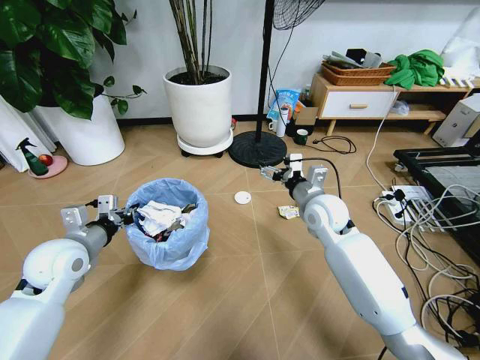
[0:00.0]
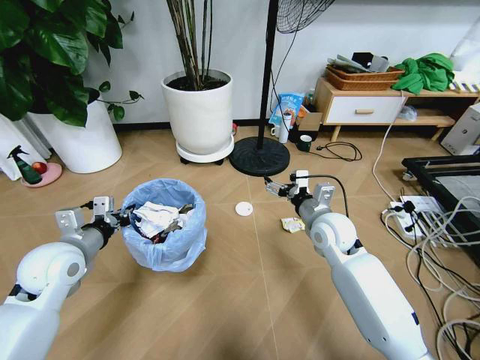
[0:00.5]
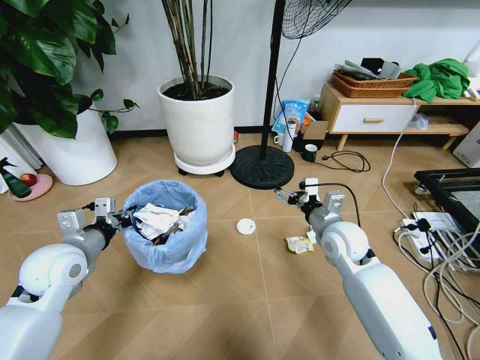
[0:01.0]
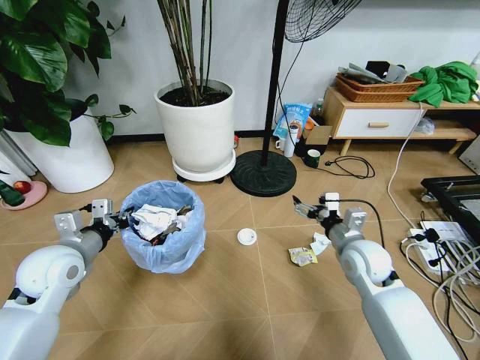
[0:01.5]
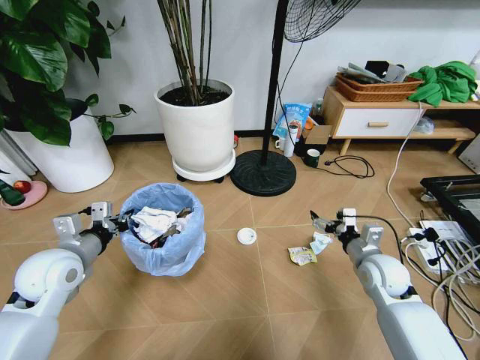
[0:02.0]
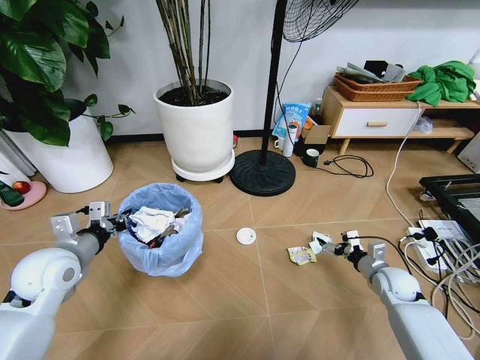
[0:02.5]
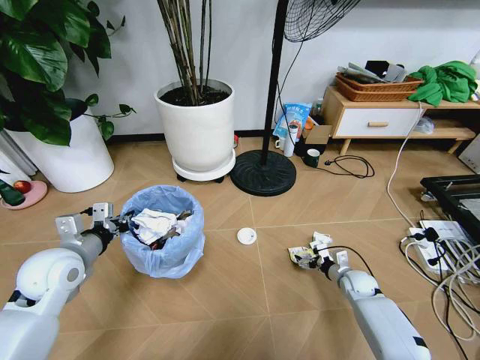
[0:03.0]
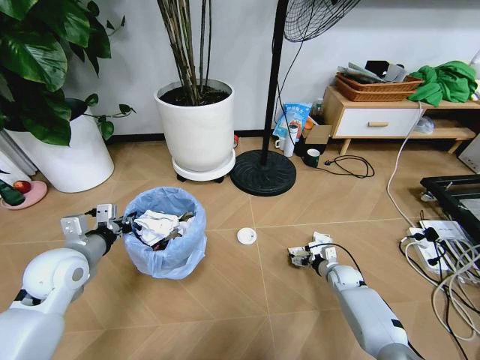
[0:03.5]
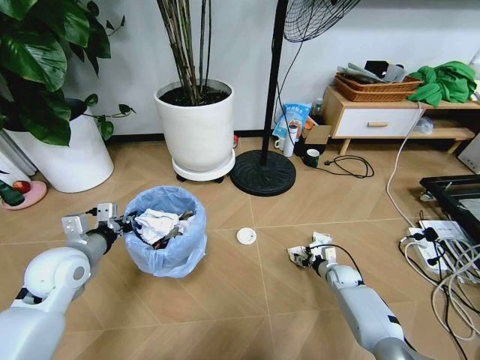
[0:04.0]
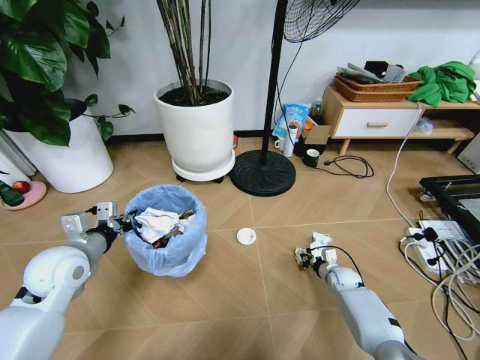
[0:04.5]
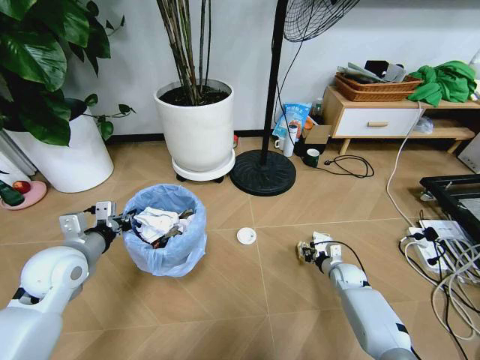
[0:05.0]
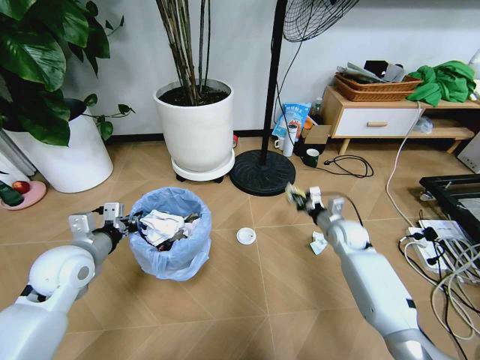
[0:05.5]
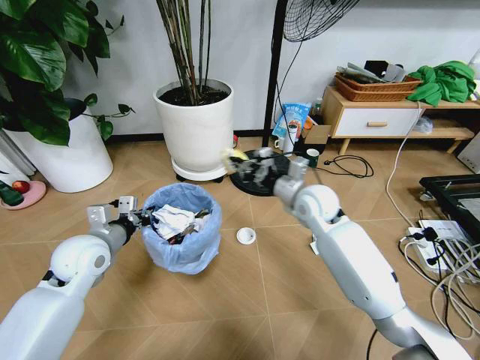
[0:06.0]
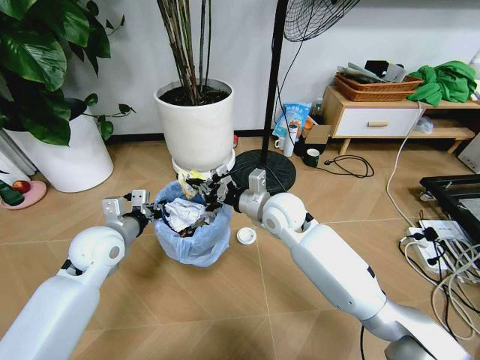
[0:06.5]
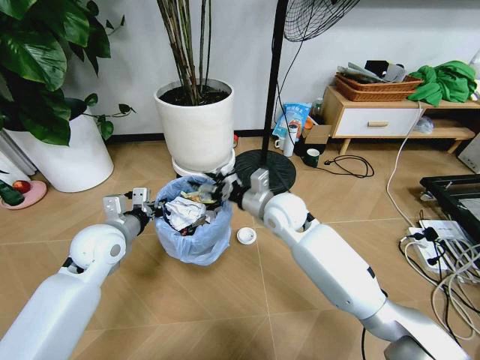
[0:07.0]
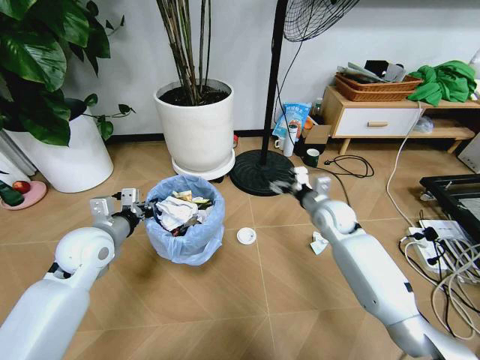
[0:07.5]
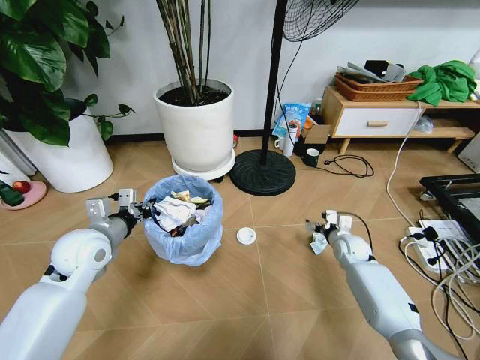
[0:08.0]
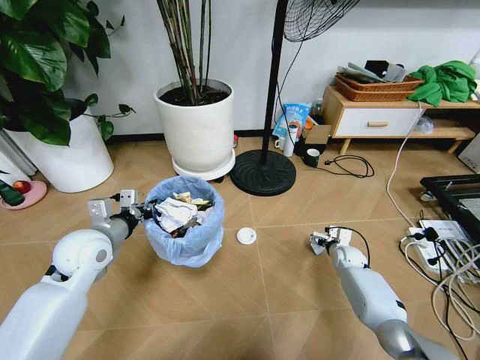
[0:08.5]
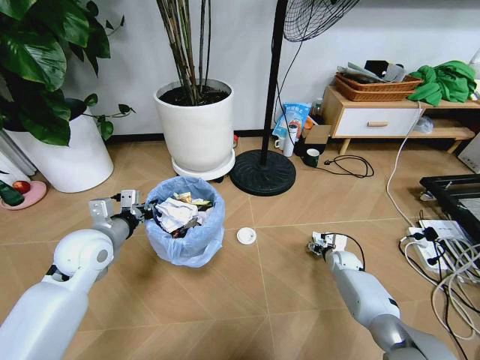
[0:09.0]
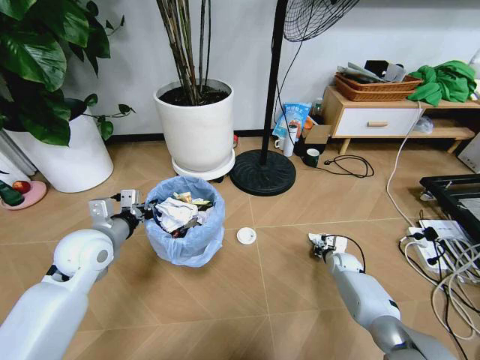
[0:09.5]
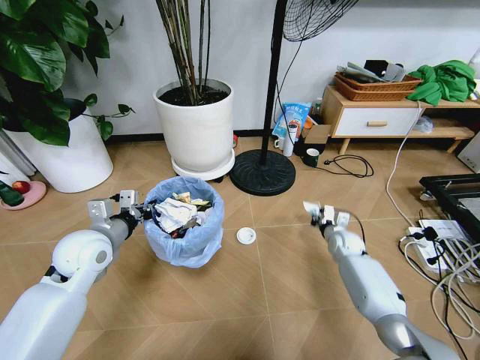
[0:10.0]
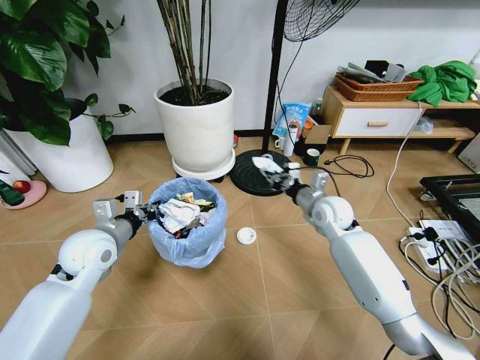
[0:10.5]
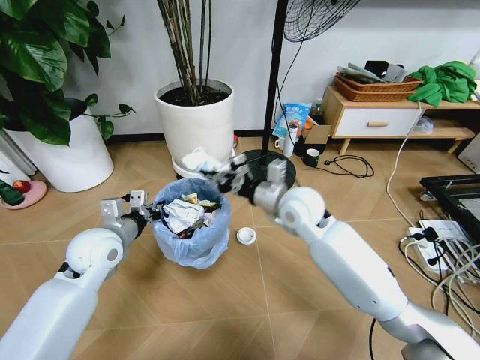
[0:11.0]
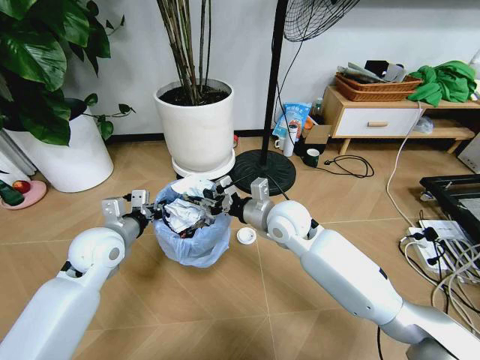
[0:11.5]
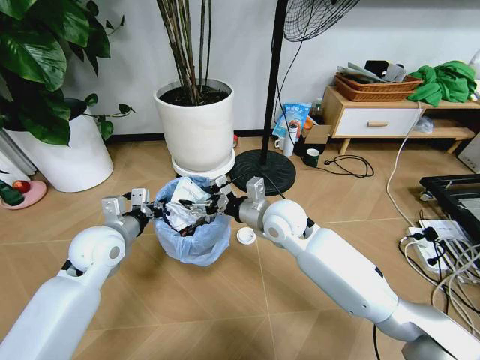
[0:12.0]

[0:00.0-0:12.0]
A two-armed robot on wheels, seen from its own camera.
Task of the whole recording: Pick up the trash bin and place the garbage on the floor into it.
0:00.0 to 0:02.0: The right gripper travels to the right, backward and downward by some 20 cm.
0:02.0 to 0:04.0: The right gripper is displaced downward by some 20 cm, and closes.
0:04.0 to 0:06.0: The right gripper shifts some 35 cm upward and to the left, and closes.
0:06.0 to 0:08.0: The right gripper shifts roughly 25 cm downward and to the right, and opens up.
0:08.0 to 0:10.0: The right gripper moves about 10 cm downward and comes back, and closes up.
0:10.0 to 0:12.0: The right gripper travels to the left and upward by about 35 cm, and opens.

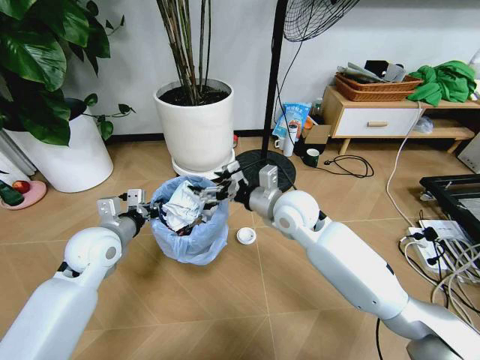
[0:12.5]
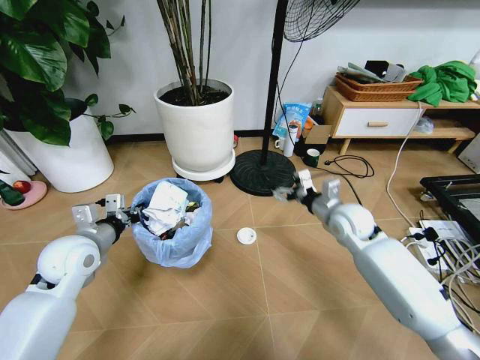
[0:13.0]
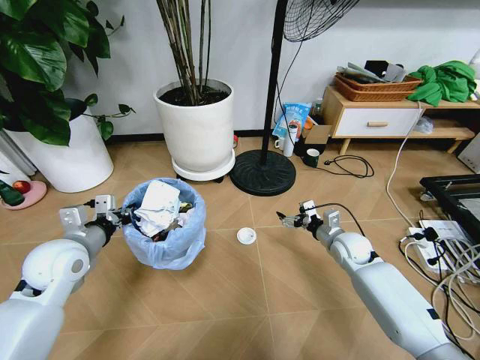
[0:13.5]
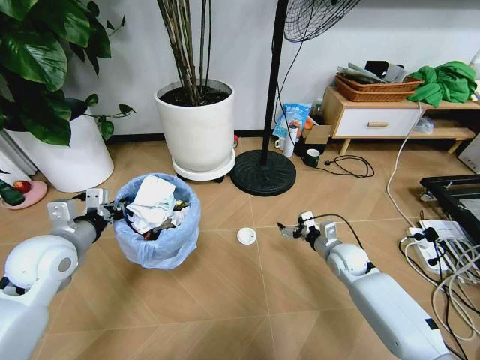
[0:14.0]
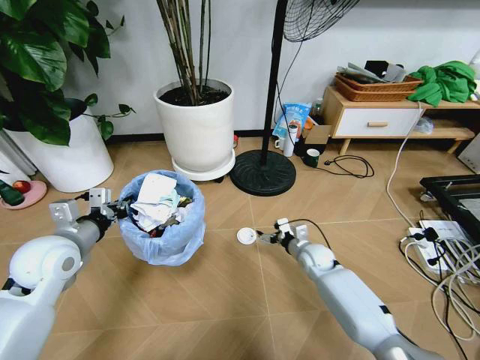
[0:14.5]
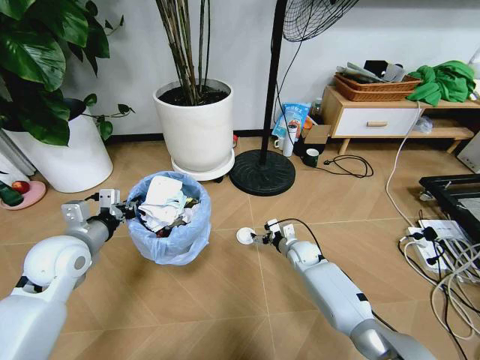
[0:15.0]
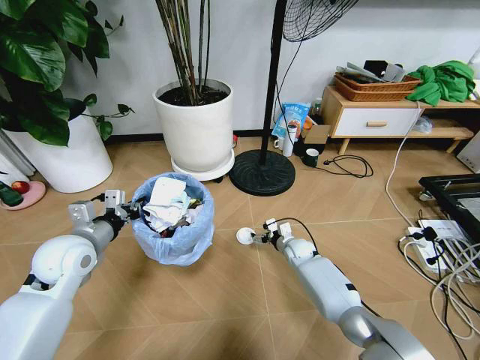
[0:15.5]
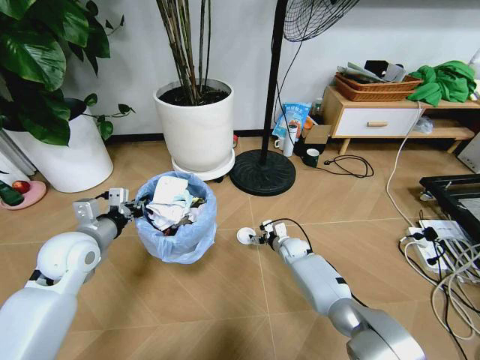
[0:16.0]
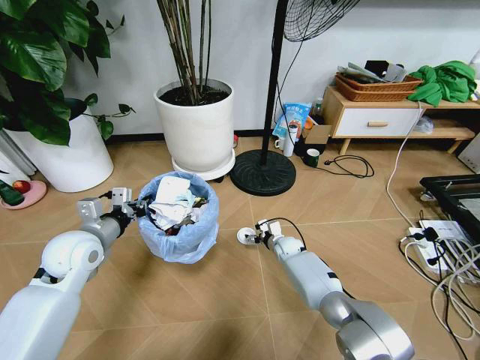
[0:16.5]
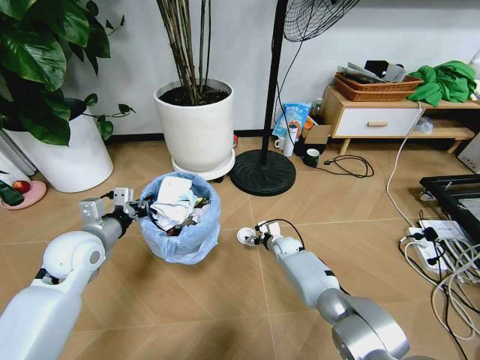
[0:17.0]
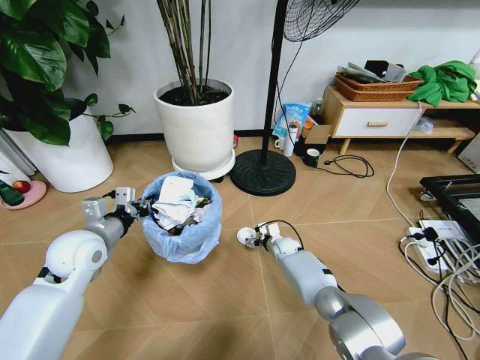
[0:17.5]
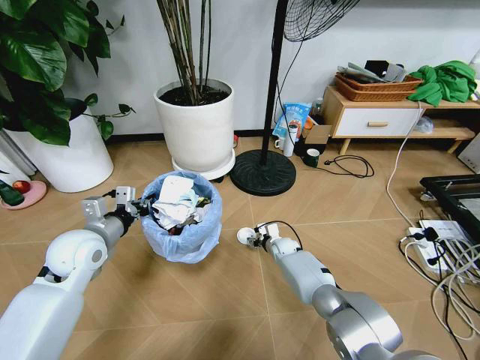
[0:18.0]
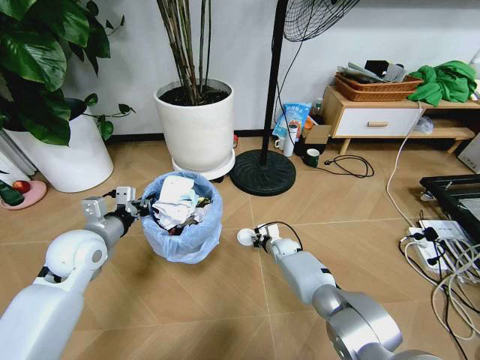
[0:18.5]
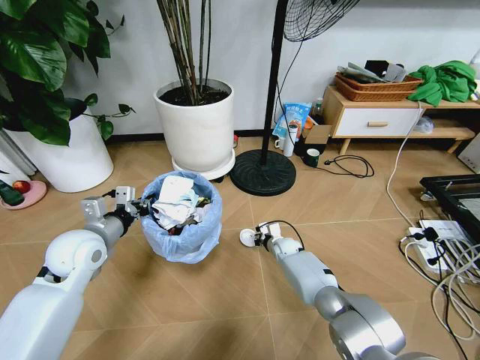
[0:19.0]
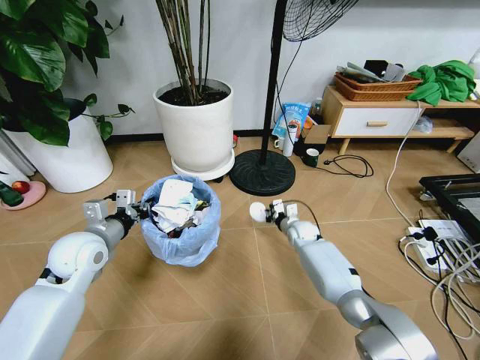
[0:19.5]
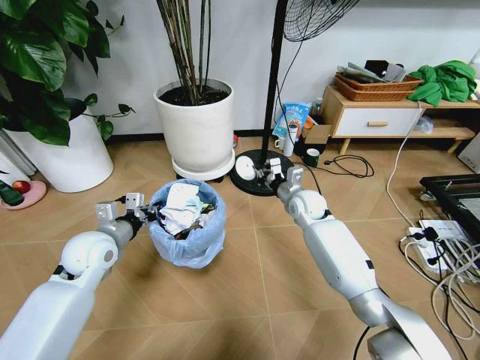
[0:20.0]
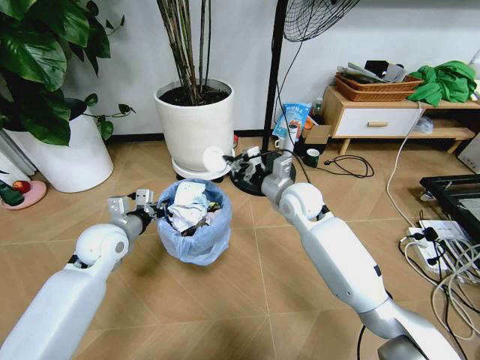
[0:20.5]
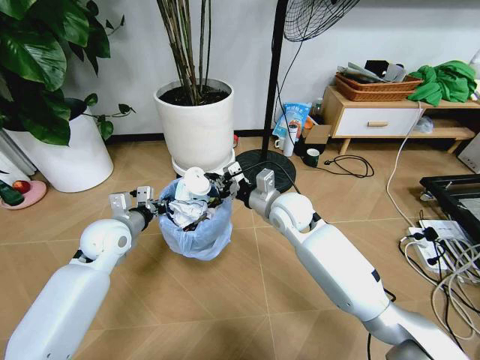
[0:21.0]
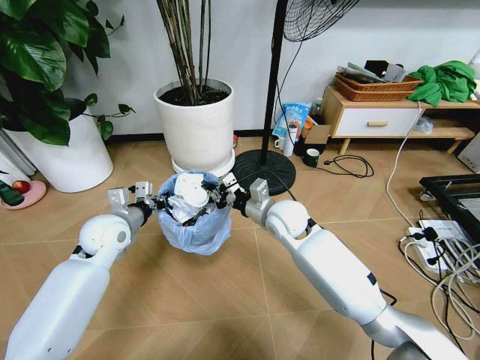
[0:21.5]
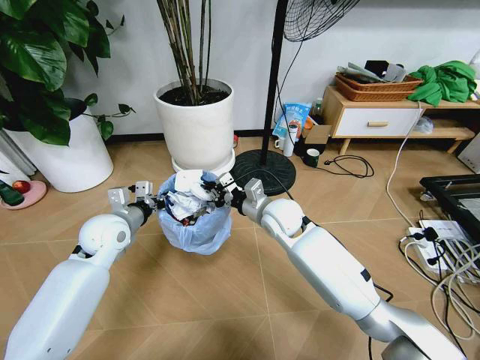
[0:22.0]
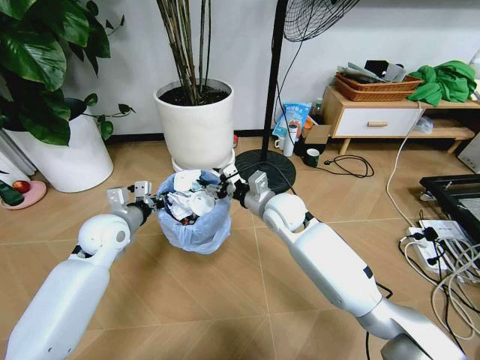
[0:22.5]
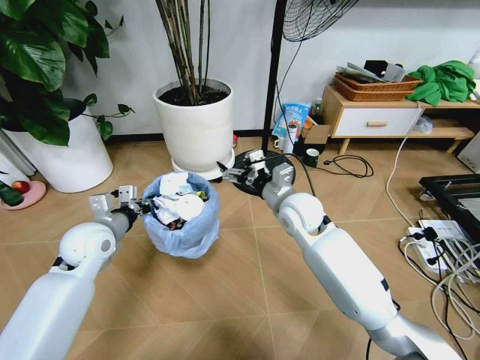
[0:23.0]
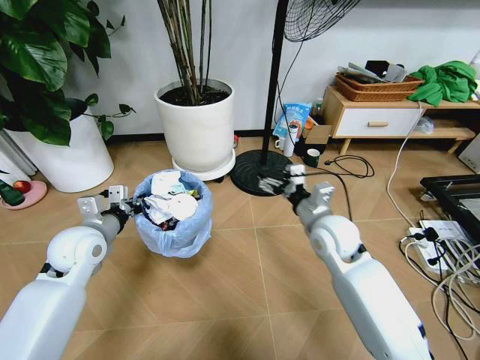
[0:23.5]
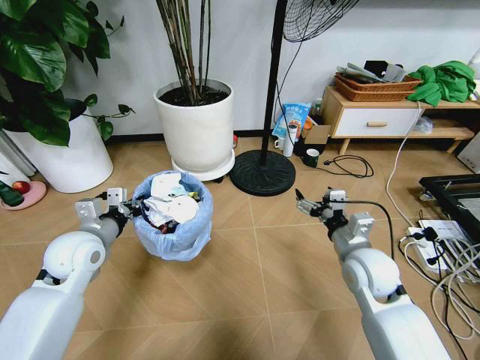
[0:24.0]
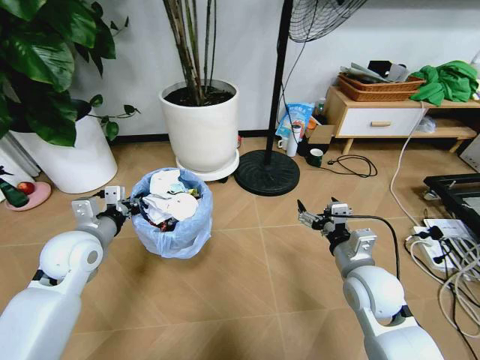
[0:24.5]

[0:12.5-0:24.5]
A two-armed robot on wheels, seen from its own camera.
Task of the whole recording: Pick up the trash bin and place the garbage on the floor into it.
0:12.5 to 0:14.5: The left gripper goes approximately 5 cm to the left; the right gripper heads downward and to the right, covering approximately 25 cm.
0:14.5 to 0:16.5: The right gripper heads forward, downward and to the left, covering roughly 10 cm.
0:16.5 to 0:18.5: The right gripper closes up.
0:18.5 to 0:20.5: The left gripper shifts by approximately 5 cm. The right gripper is displaced upward by some 30 cm.
0:20.5 to 0:22.5: The right gripper opens up.
0:22.5 to 0:24.5: The right gripper heads backward and to the right, covering approximately 25 cm. The left gripper goes some 5 cm backward.

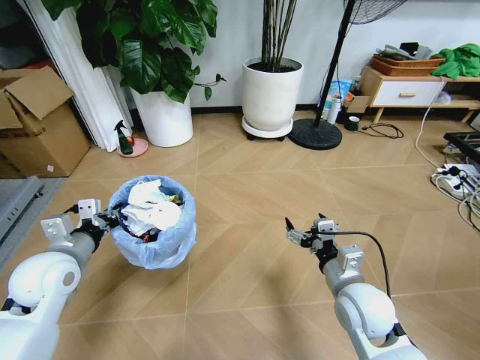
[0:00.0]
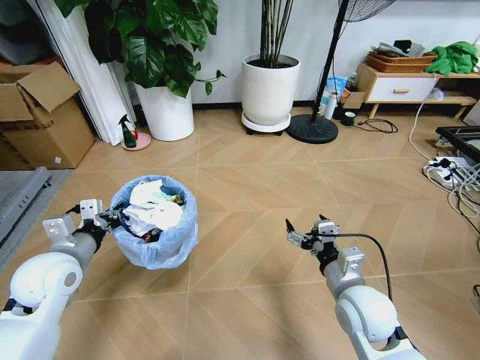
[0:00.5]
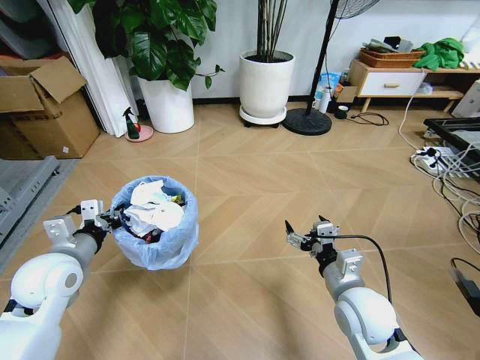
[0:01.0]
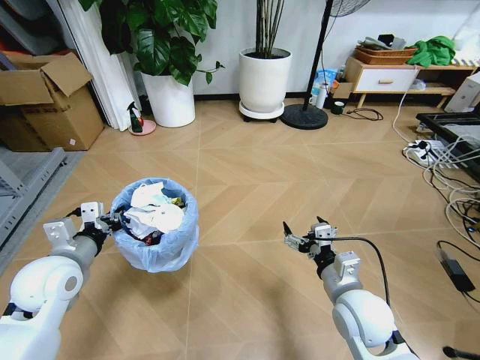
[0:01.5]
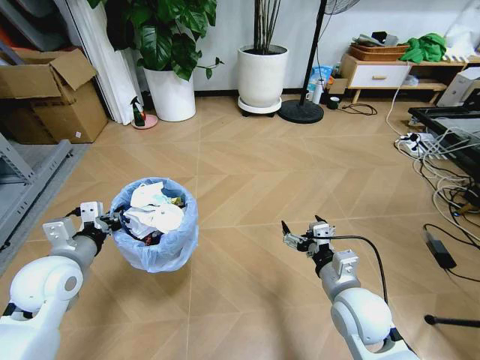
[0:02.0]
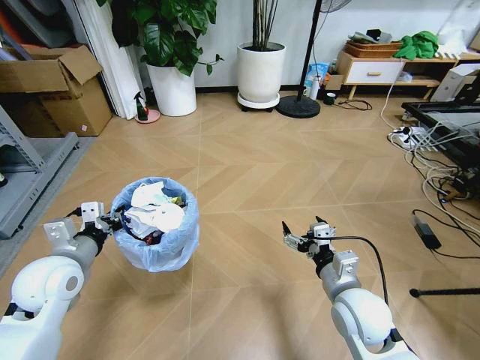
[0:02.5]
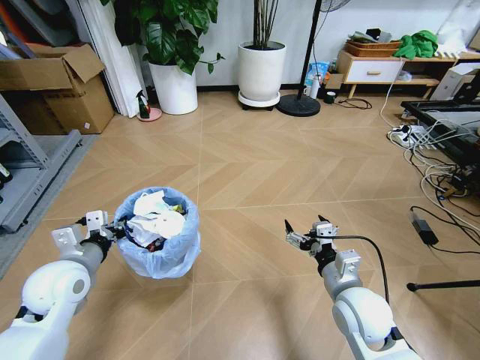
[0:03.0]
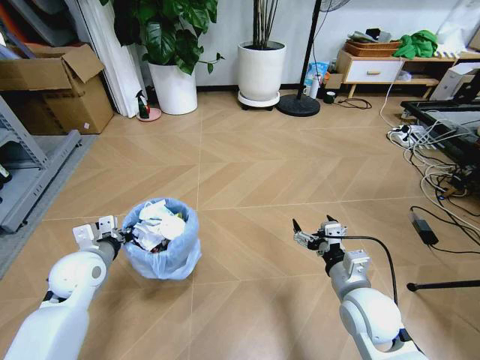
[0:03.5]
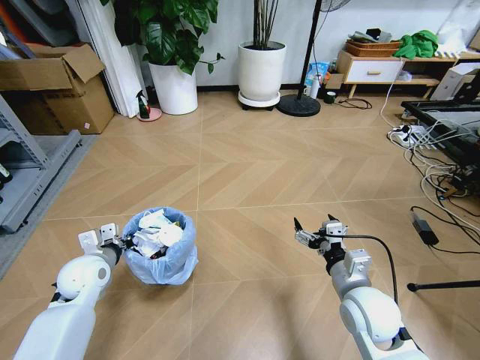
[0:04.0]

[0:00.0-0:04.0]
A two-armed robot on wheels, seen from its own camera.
Task of the whole recording: Pick up the trash bin and place the garbage on the floor into it.
0:02.0 to 0:04.0: The left gripper is displaced downward and forward by some 10 cm.
